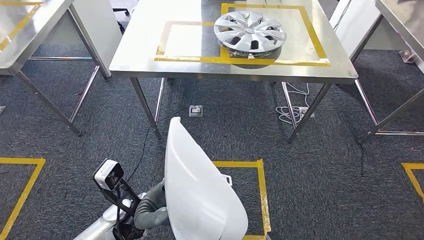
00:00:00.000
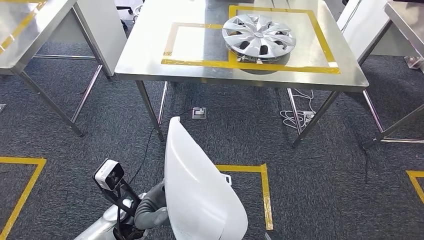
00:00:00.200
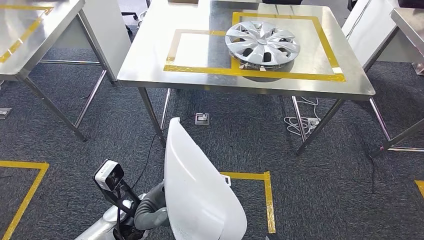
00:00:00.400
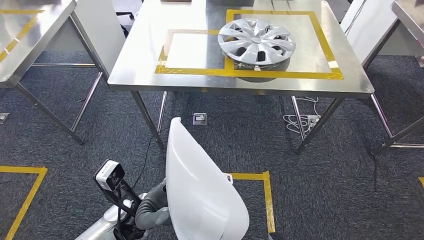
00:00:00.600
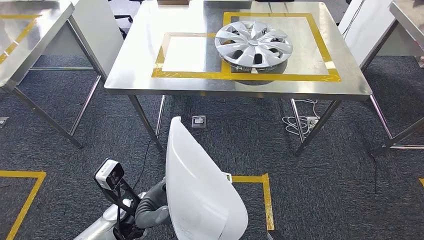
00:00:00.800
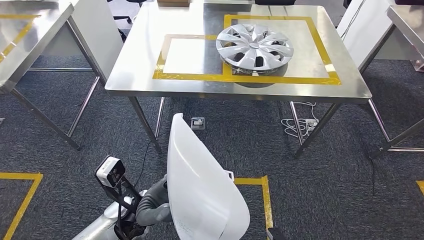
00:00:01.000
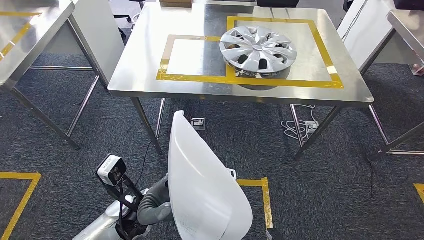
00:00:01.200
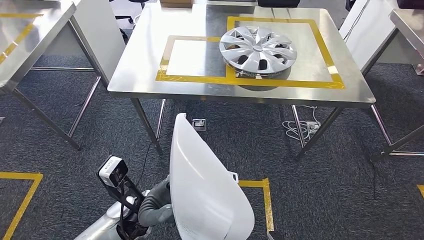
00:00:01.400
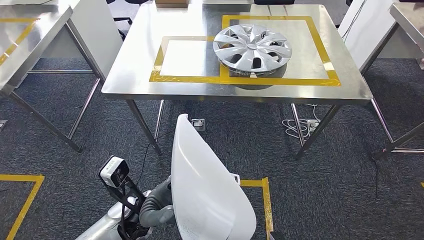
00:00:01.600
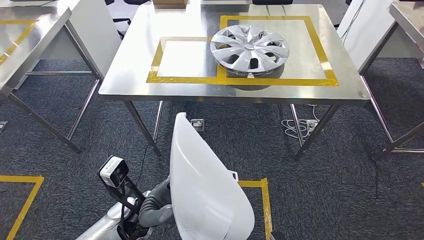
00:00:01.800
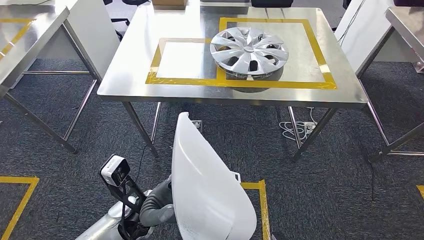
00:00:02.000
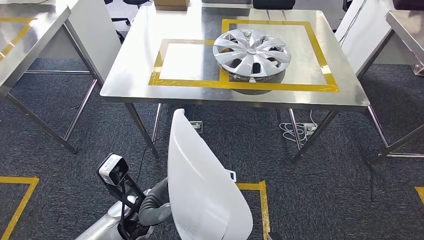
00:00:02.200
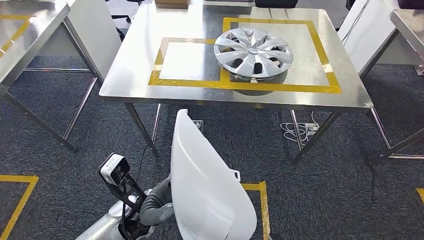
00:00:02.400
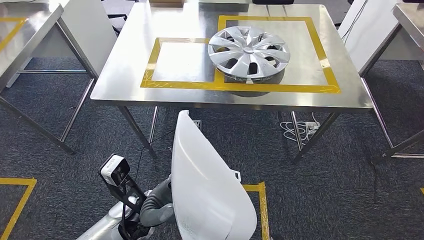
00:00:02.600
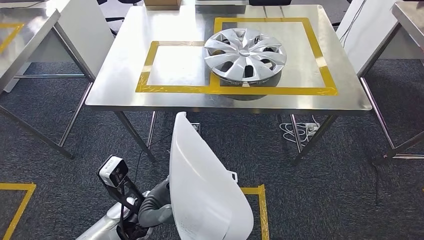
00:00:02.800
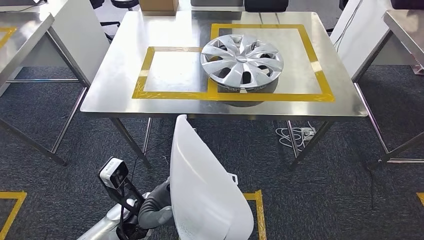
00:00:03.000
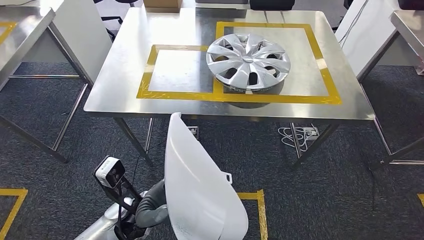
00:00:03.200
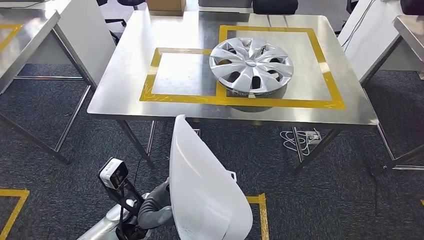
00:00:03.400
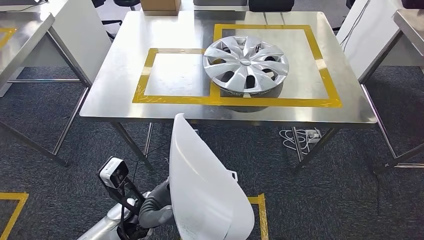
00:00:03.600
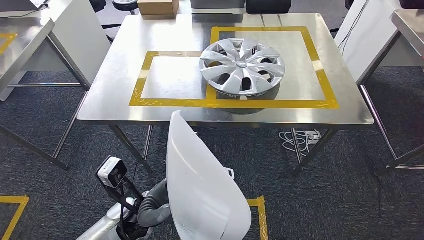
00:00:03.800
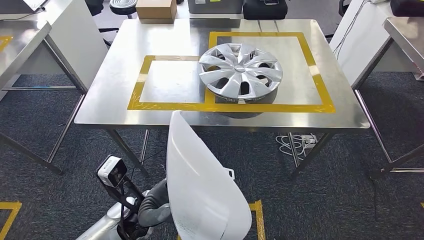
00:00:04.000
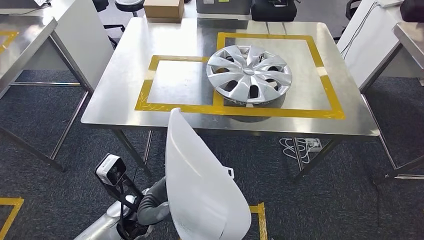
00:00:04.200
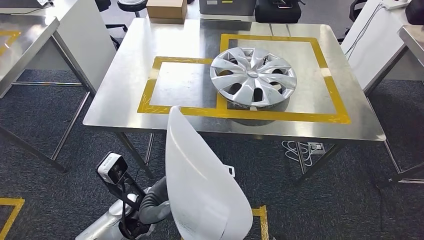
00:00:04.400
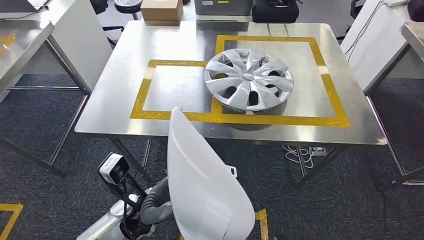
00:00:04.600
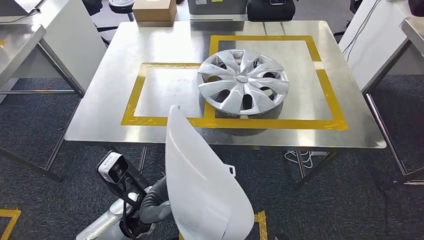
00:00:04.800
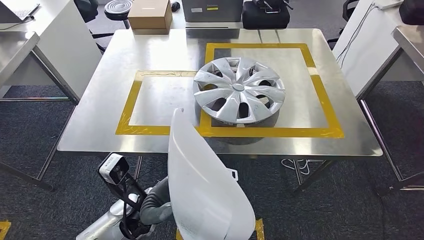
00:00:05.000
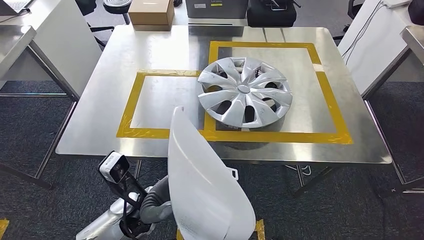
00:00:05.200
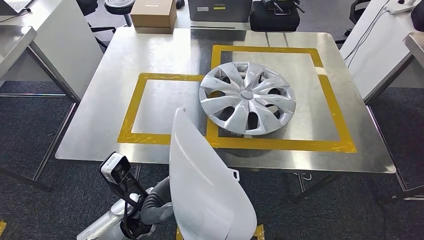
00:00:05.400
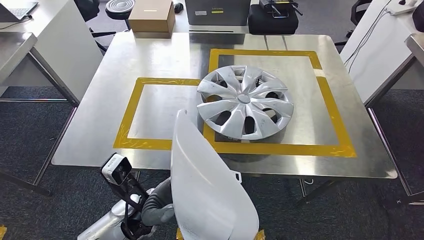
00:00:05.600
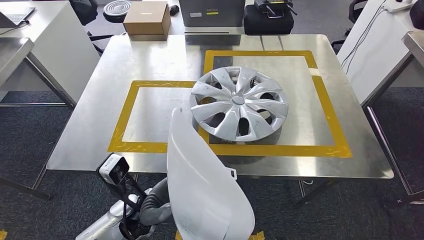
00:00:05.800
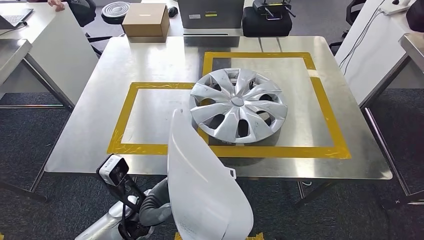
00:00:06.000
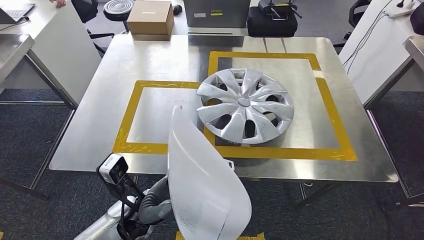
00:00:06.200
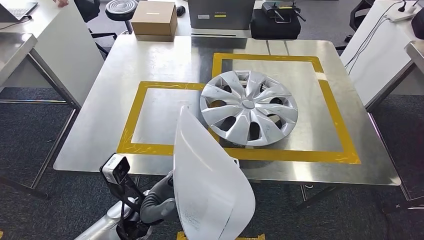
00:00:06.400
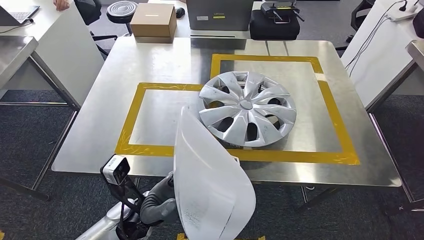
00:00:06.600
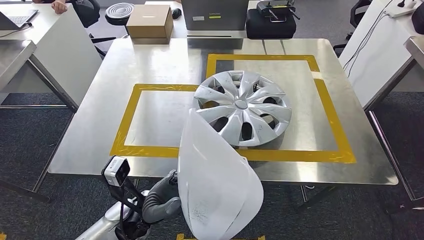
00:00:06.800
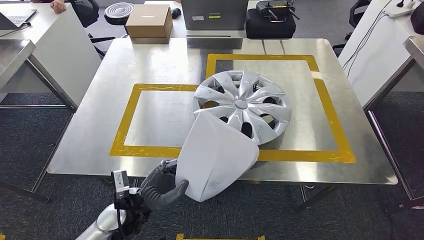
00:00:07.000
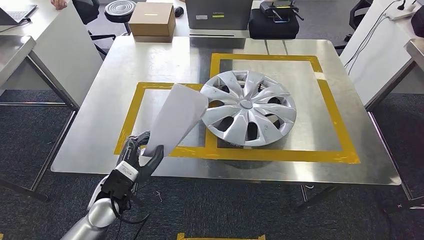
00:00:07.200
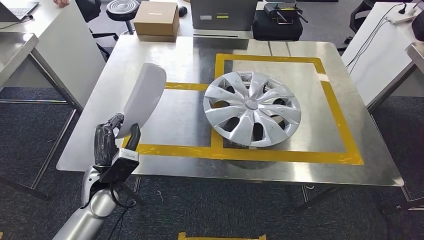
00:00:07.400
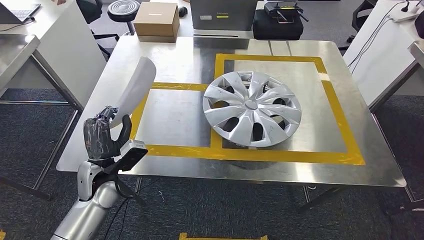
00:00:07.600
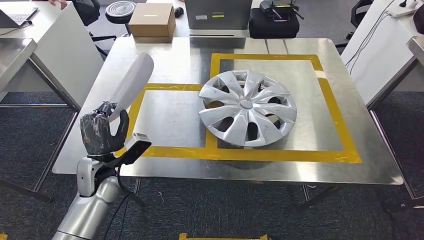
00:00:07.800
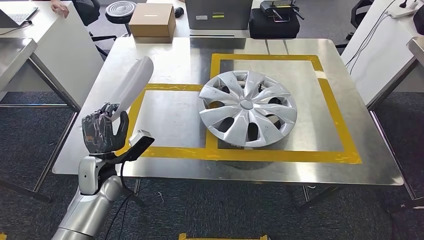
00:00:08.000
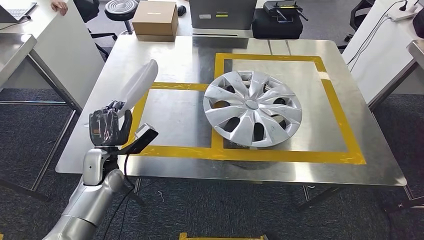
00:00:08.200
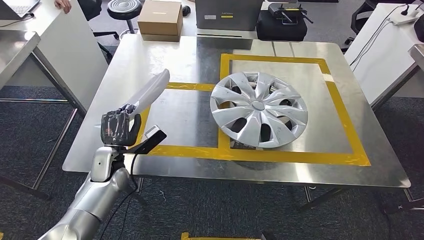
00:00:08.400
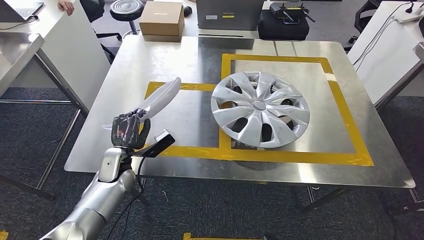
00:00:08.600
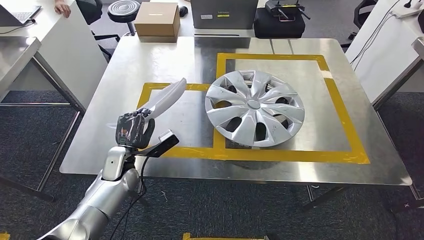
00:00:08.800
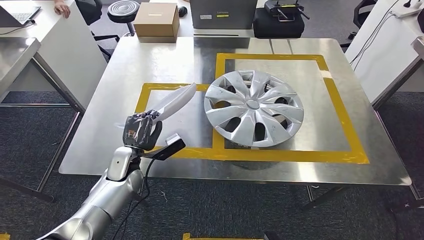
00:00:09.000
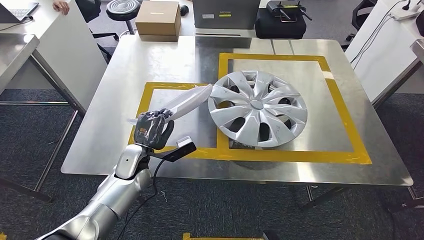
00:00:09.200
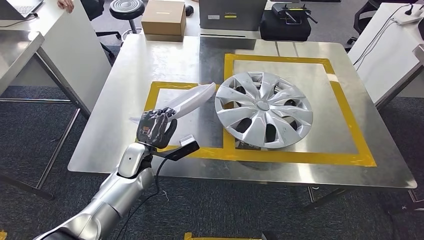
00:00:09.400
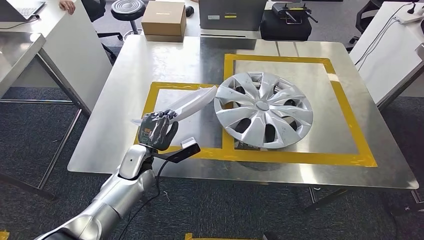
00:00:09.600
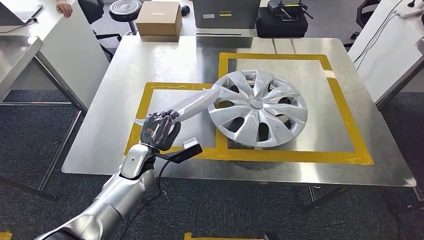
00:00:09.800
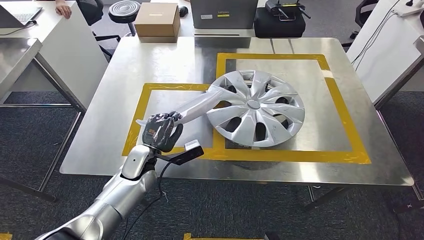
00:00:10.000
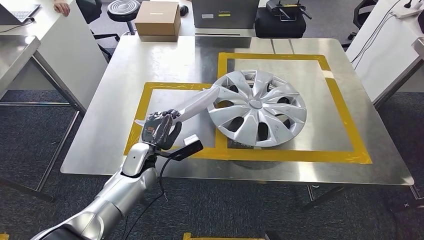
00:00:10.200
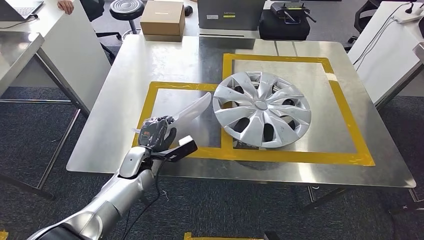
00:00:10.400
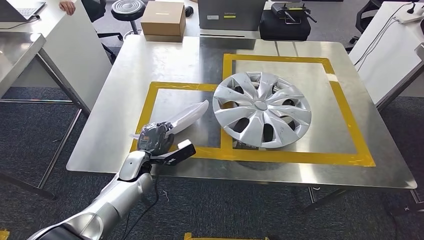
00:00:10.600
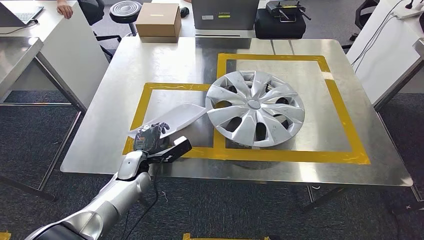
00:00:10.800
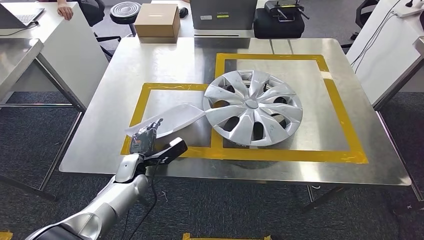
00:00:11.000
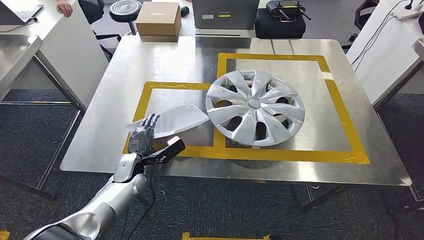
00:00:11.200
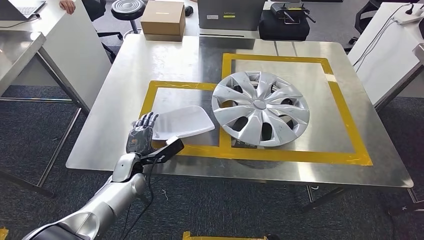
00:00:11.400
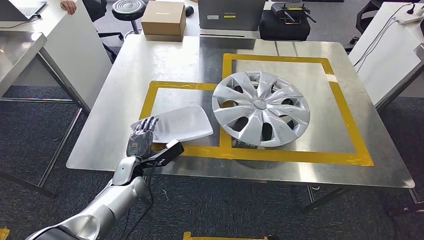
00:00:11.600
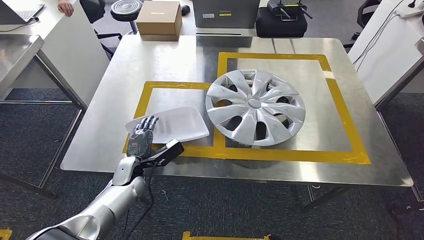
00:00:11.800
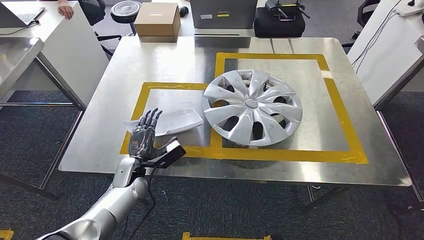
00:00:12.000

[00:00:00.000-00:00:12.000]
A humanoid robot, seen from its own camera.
Step, 00:00:00.000 to 00:00:06.000: Move the small component to the workbench.
Step, 00:00:06.200 to 00:00:12.000: Insert the small component into the corresponding slot on the workbench.
00:00:07.600 to 00:00:09.000: The left hand heads forward, covering some 5 cm.

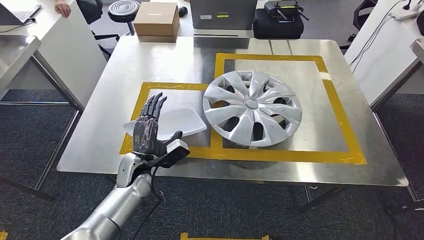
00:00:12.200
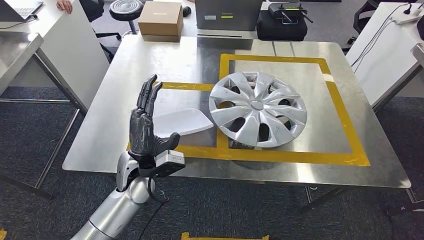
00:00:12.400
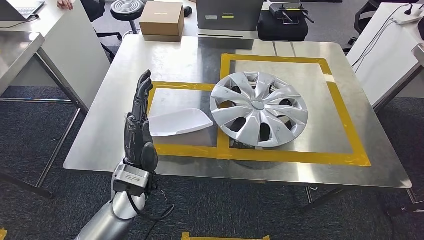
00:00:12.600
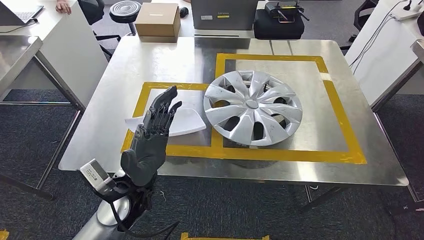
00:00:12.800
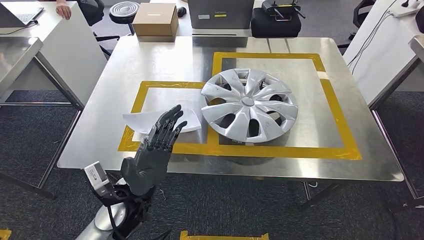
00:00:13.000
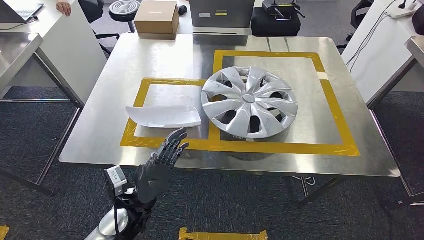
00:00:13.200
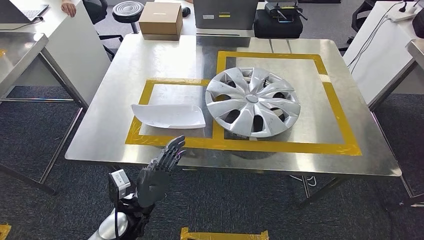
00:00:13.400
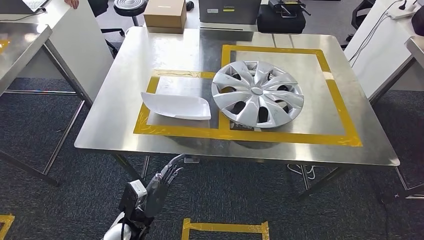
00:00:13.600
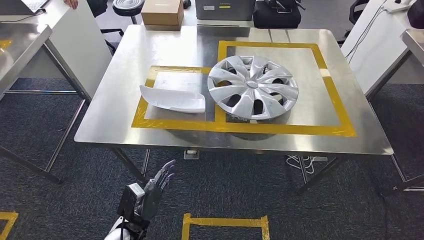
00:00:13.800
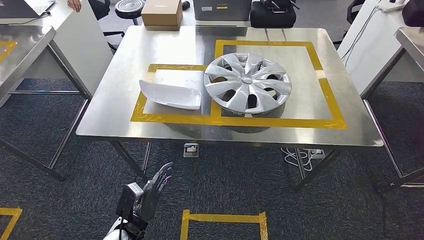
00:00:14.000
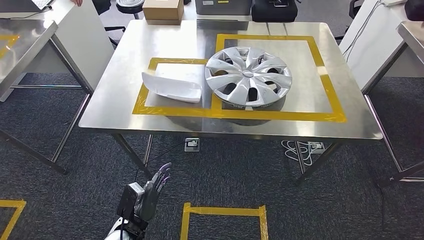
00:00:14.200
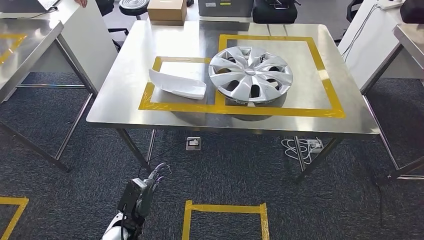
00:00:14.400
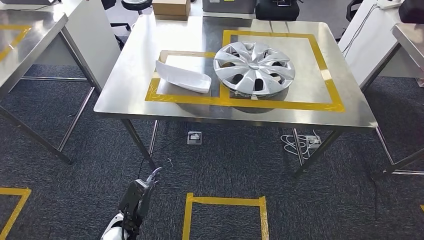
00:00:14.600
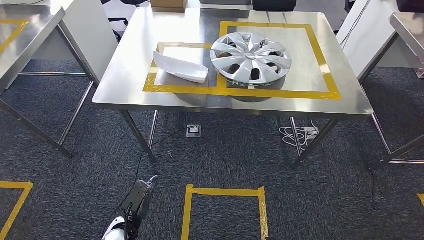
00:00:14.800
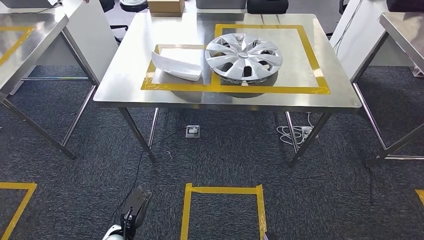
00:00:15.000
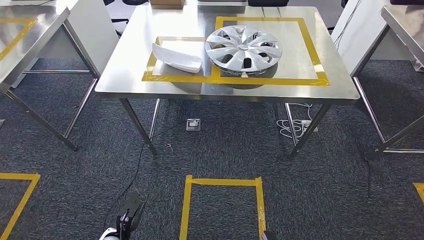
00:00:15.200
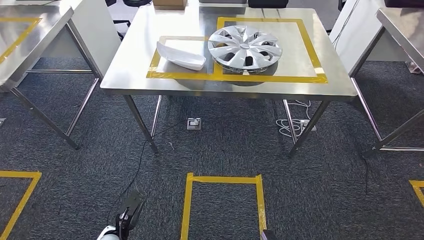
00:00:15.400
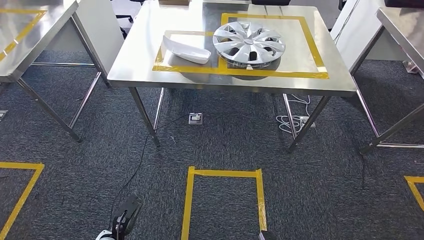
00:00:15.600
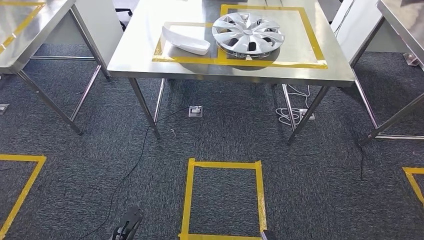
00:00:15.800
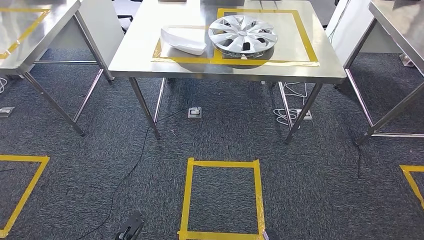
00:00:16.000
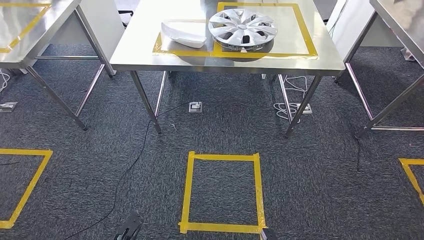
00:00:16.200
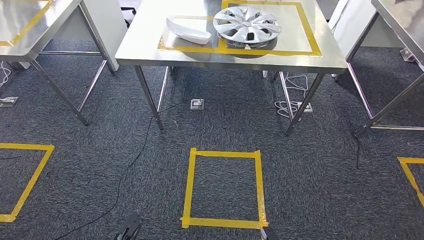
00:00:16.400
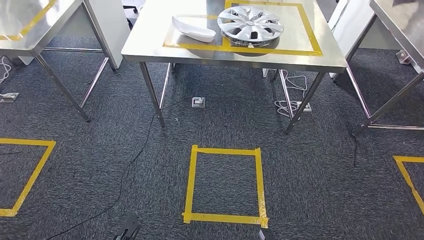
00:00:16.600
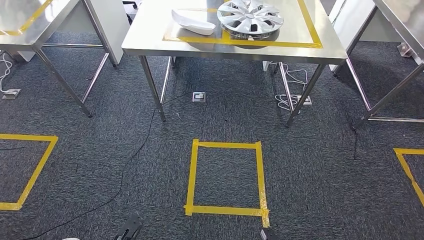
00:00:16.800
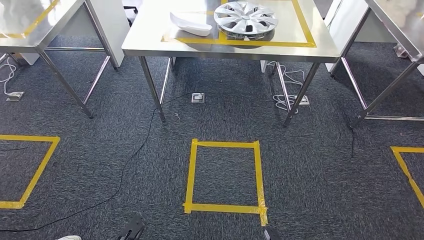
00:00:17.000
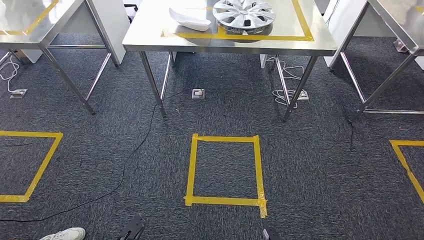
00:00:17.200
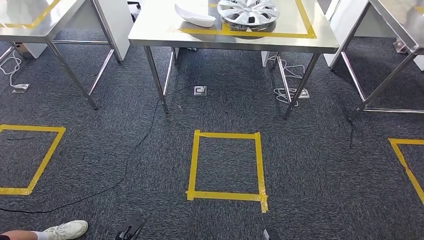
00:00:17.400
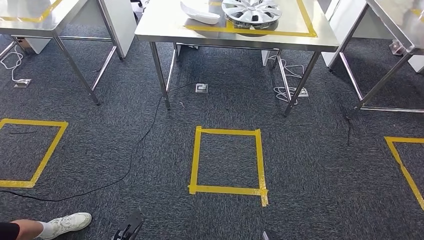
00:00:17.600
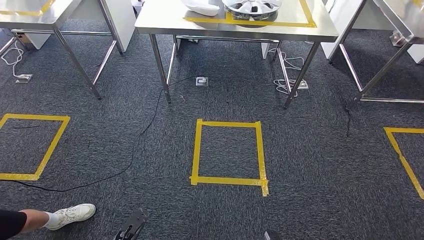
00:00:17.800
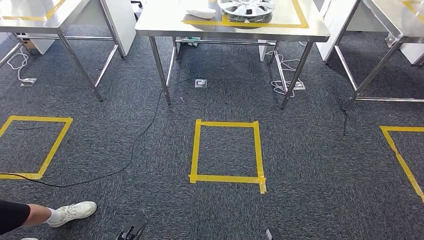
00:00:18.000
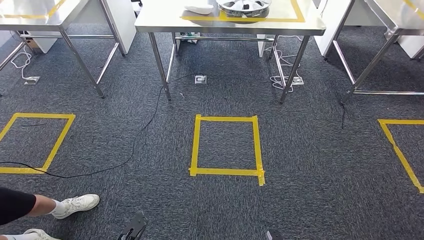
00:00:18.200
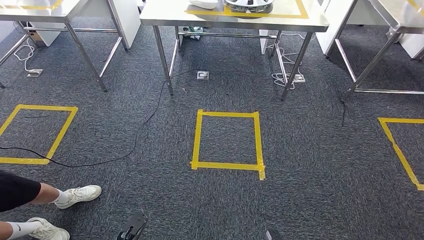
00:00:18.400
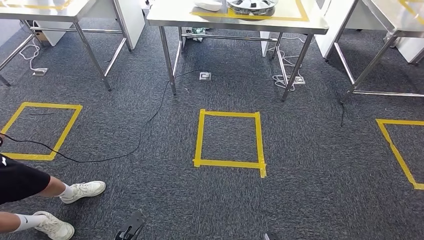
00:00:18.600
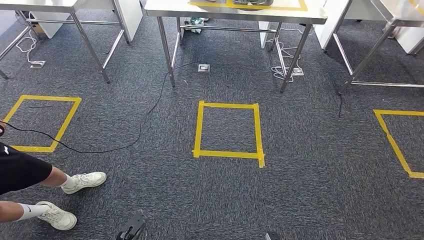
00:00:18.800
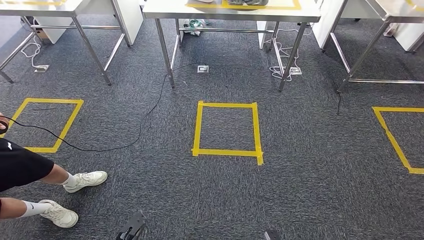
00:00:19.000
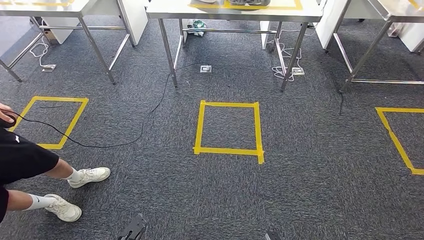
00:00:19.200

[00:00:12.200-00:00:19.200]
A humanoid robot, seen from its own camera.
Step, 00:00:12.200 to 00:00:19.200: Return to the initial position at the workbench.
